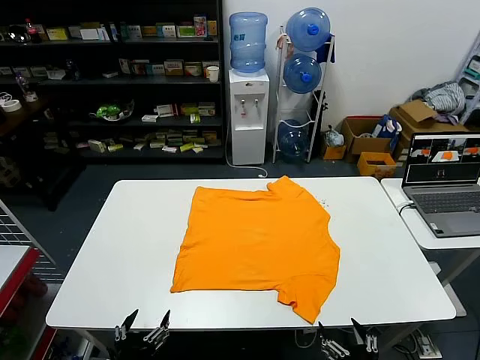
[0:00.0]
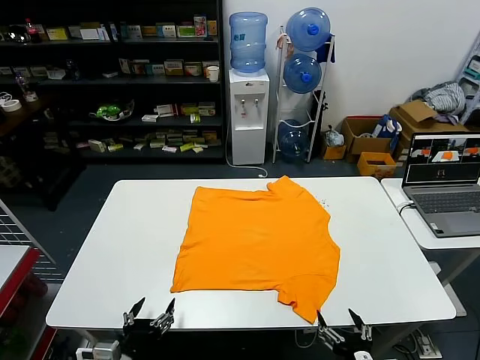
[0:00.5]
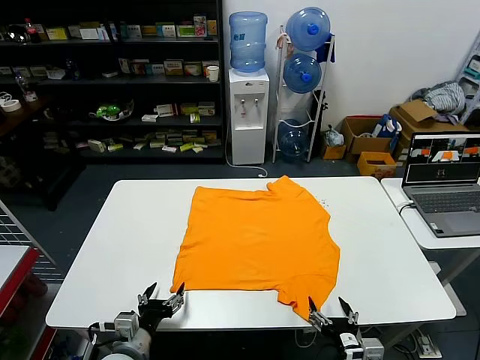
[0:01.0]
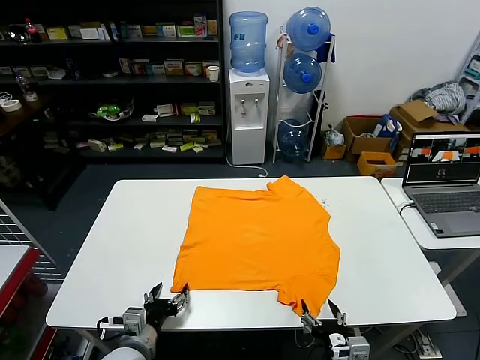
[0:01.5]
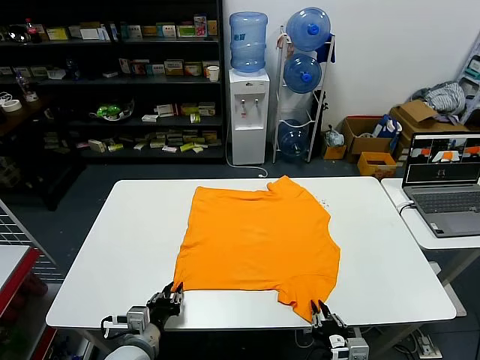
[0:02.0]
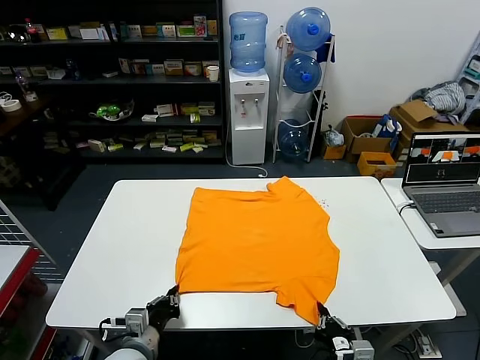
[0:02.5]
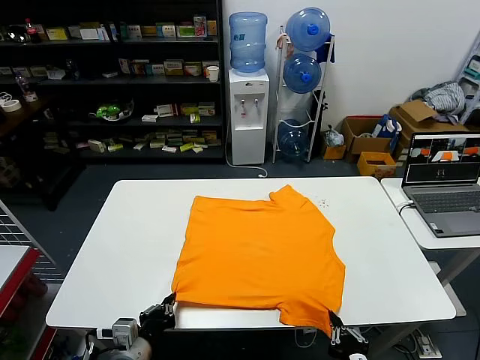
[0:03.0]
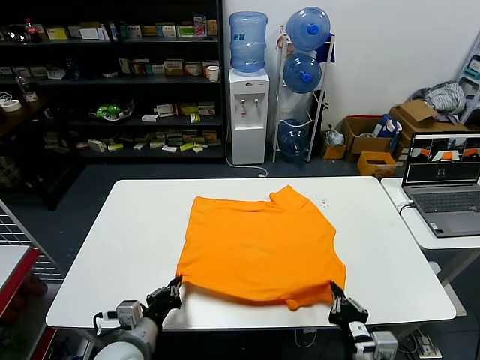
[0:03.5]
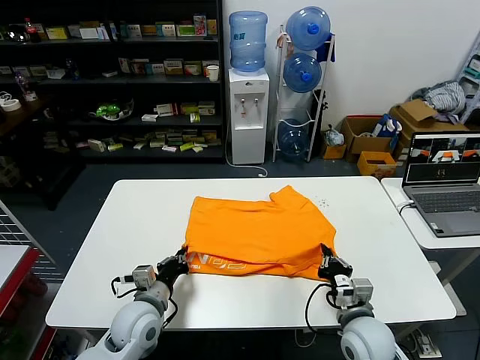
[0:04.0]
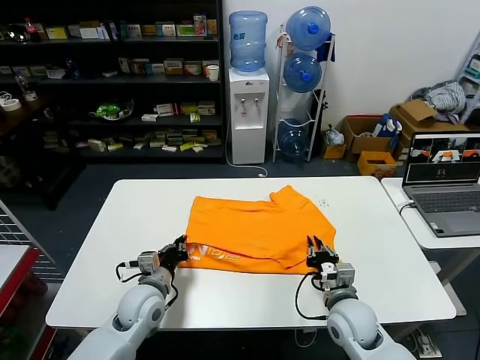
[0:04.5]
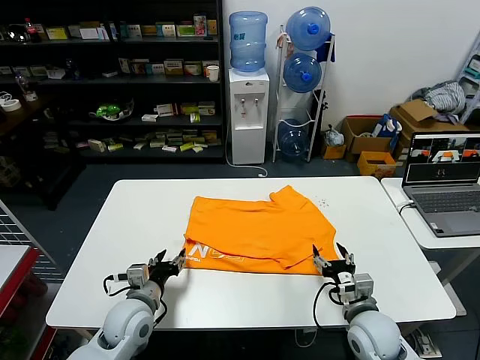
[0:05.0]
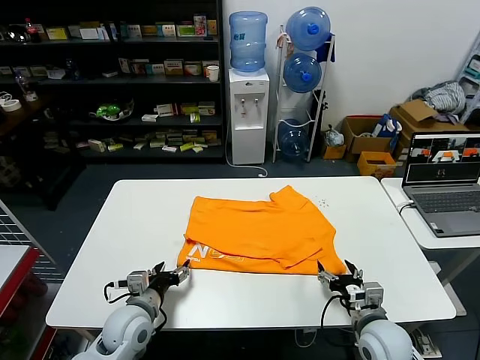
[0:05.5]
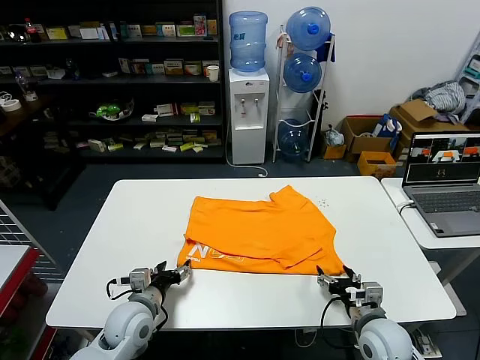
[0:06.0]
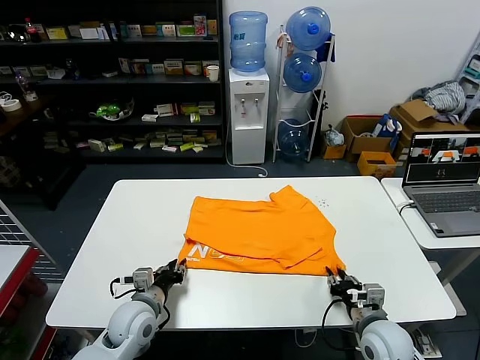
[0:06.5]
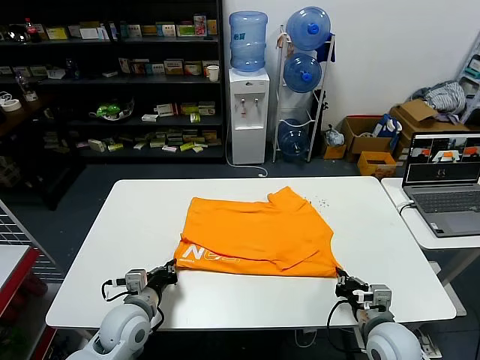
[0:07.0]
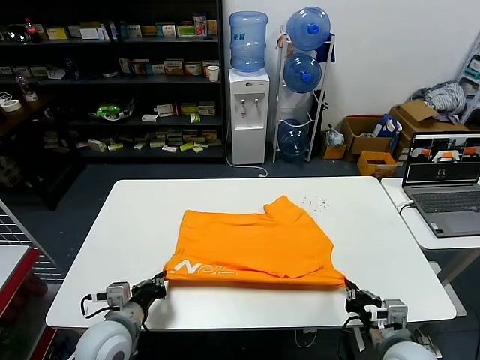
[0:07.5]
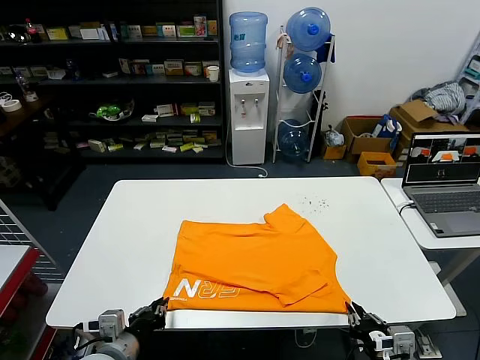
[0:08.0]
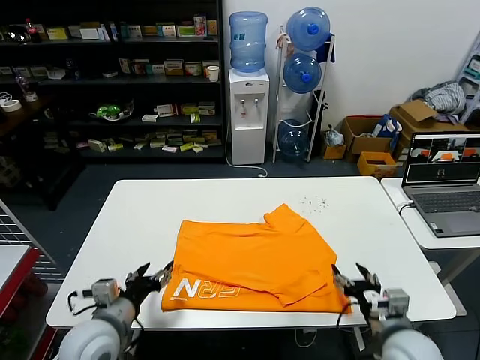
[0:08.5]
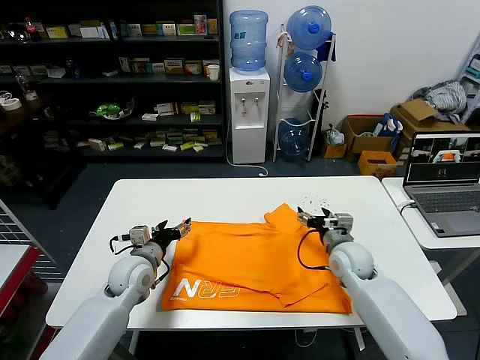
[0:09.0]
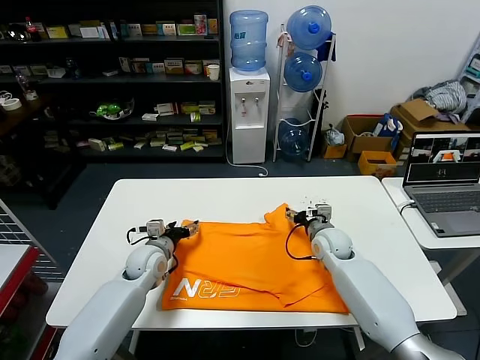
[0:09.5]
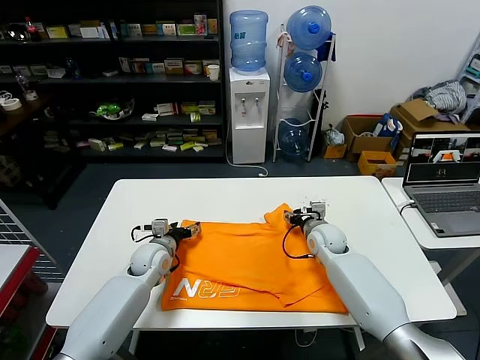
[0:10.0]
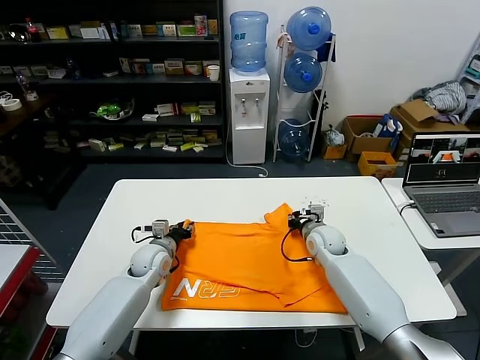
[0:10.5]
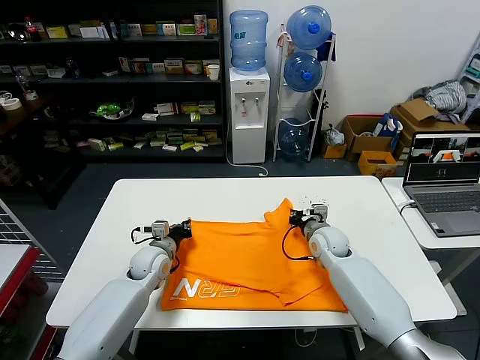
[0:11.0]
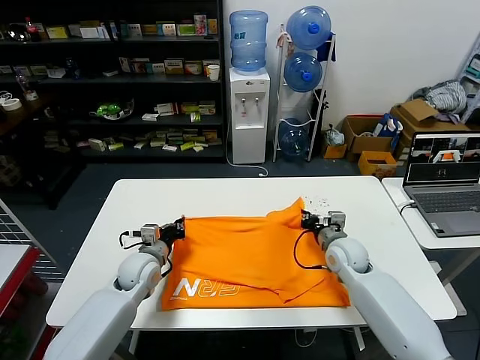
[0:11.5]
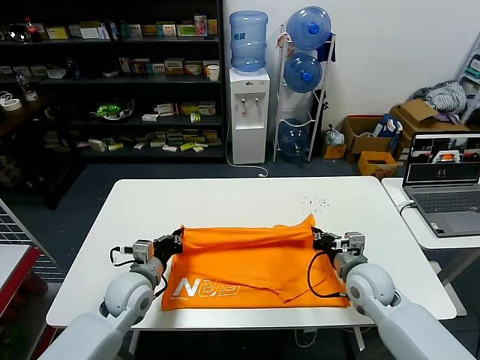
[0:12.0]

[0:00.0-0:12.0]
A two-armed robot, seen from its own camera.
Task of the whole recording: fold and organize the clothes.
Step, 0:00.0 to 0:02.0: use both grippers simultaneously to clamp the lower edge of the clothing fabric.
Step, 0:02.5 to 0:04.5: use both grippers to drag the lower edge of the fabric forward and fold it over the upper edge.
Step, 0:05.0 to 0:08.0: Drag the clothes downward with both gripper.
Step, 0:08.5 to 0:10.5: use both grippers simultaneously to clamp the upper edge of the clothing fabric.
0:02.0 to 0:04.0: The right gripper shifts about 10 cm forward; the left gripper goes some 5 cm forward, and closes.
0:04.0 to 0:06.0: The right gripper opens up; the left gripper opens.
0:06.0 to 0:08.0: The left gripper shifts approximately 10 cm backward and upward, and closes up. Meanwhile the right gripper shifts about 10 cm backward, and closes up.
0:08.0 to 0:10.0: The grippers both shift forward by some 30 cm. The left gripper opens; the right gripper opens.
0:10.0 to 0:12.0: Both grippers travel together backward, about 10 cm. The left gripper closes up. Meanwhile the right gripper closes up.

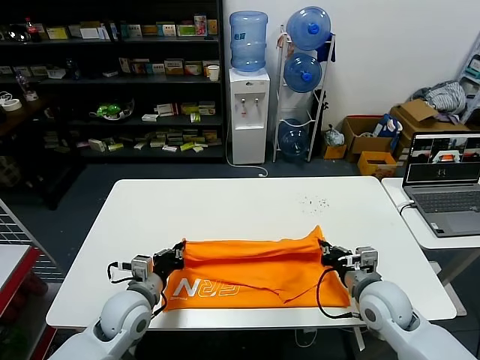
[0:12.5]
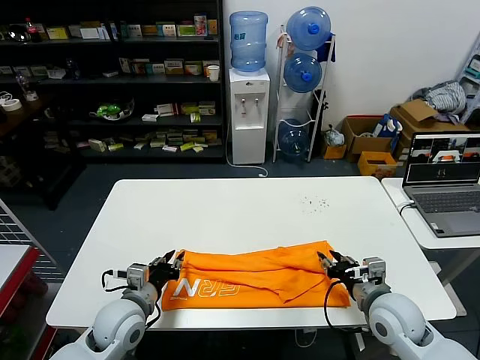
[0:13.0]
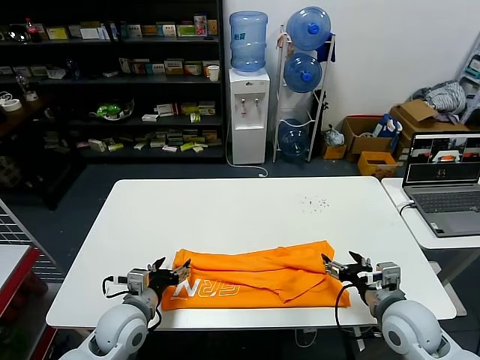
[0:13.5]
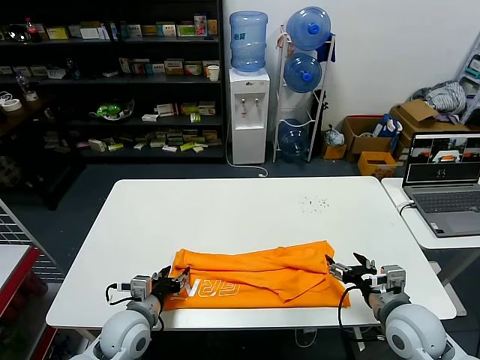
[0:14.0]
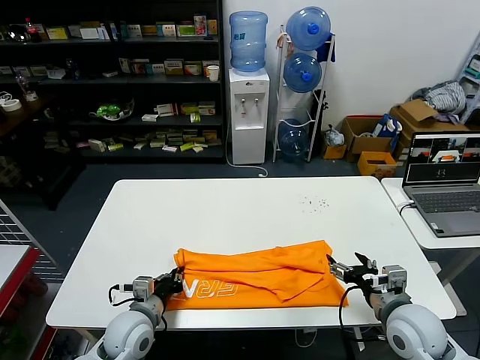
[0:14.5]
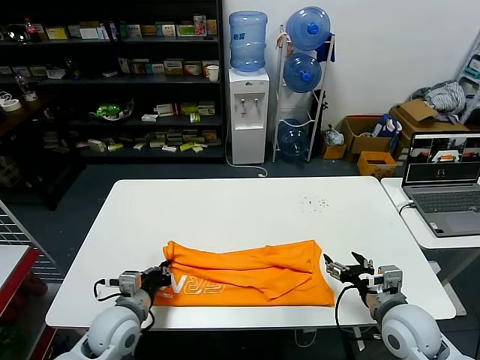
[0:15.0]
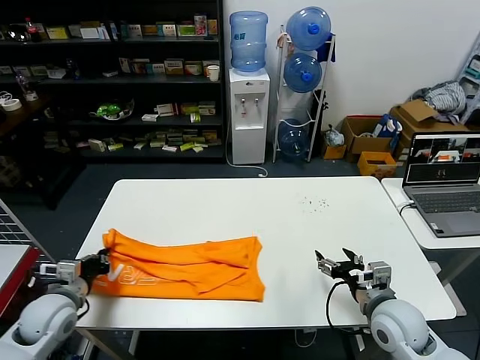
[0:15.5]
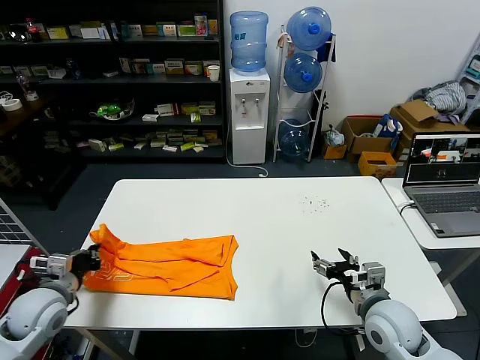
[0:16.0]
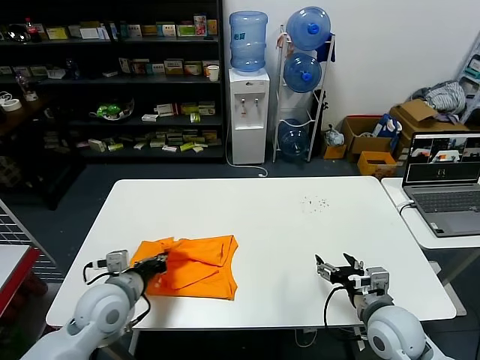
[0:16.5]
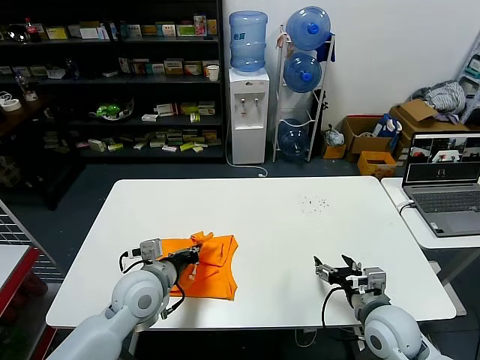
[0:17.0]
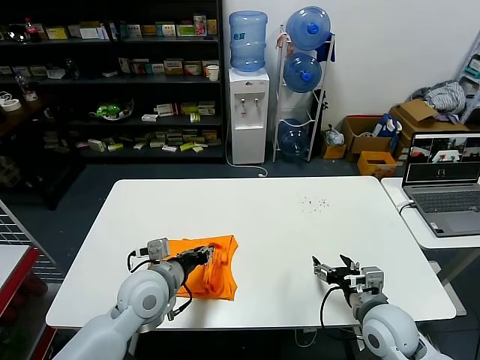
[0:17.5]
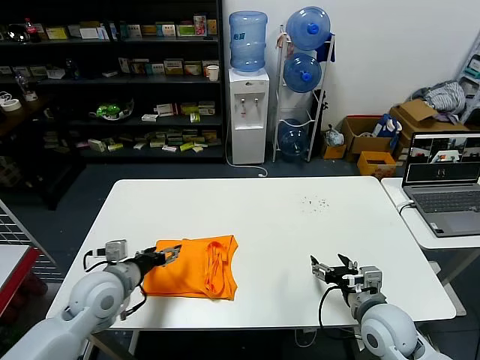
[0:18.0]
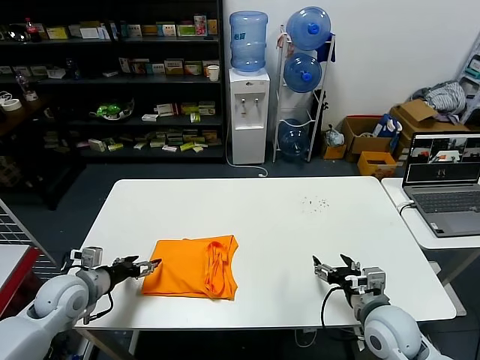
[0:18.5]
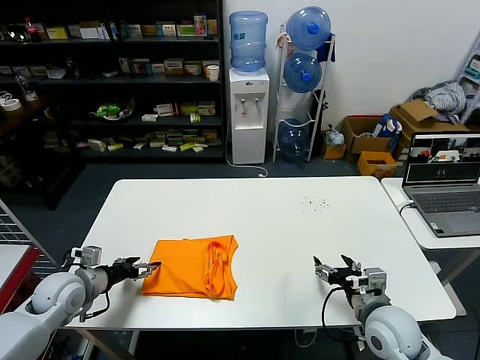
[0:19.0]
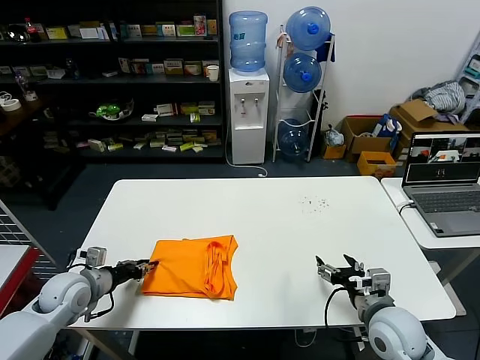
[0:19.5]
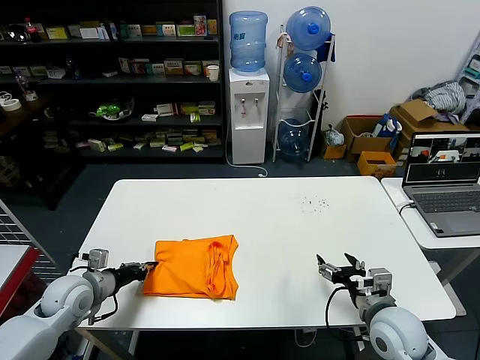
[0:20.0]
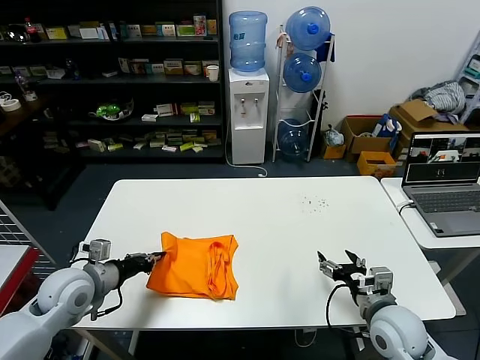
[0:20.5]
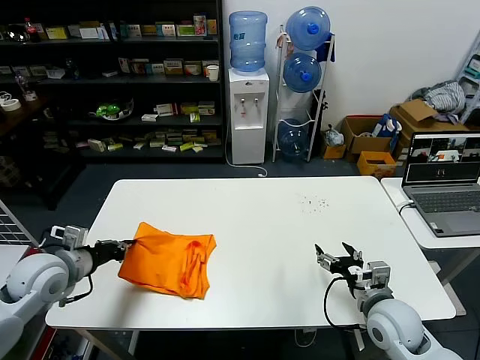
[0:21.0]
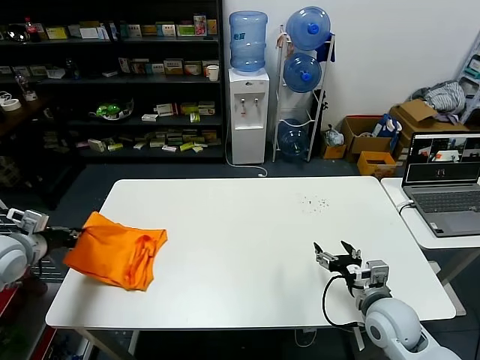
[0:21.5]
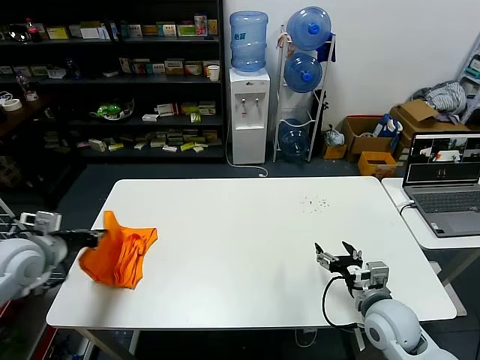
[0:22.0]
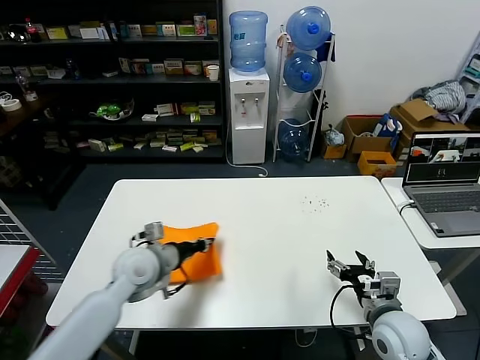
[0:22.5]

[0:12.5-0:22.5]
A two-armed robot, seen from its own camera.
Task of the whole recording: fold and organize the clothes.
Step, 0:13.5 to 0:14.5: use the left gripper to clamp the left edge of the fabric.
Step, 0:15.0 to 0:17.5: use the left gripper to drag the left edge of the fabric to the left and folds it over the right edge.
0:12.5 to 0:14.5: The left gripper opens and closes again, while the right gripper shifts roughly 5 cm backward, and opens up.
0:14.5 to 0:16.5: The left gripper goes some 10 cm upward, and travels to the left and back again, about 20 cm each way.
0:16.5 to 0:18.5: The left gripper is displaced to the left by about 10 cm, and opens its fingers.
0:18.5 to 0:20.5: The left gripper closes up.
0:20.5 to 0:22.5: The left gripper shifts roughly 10 cm to the right.

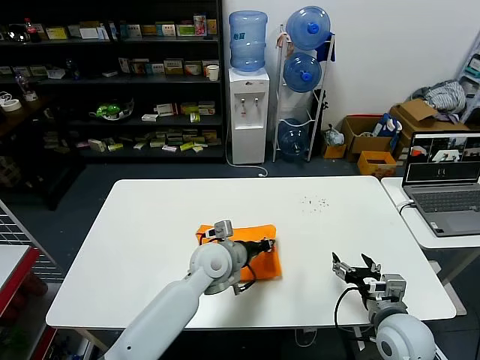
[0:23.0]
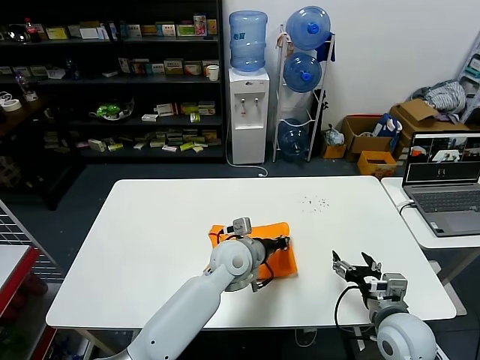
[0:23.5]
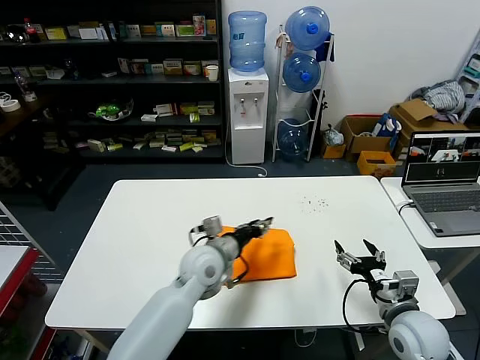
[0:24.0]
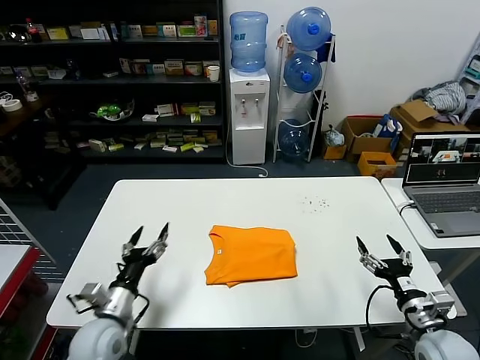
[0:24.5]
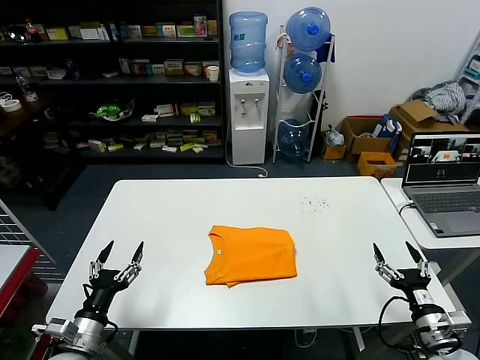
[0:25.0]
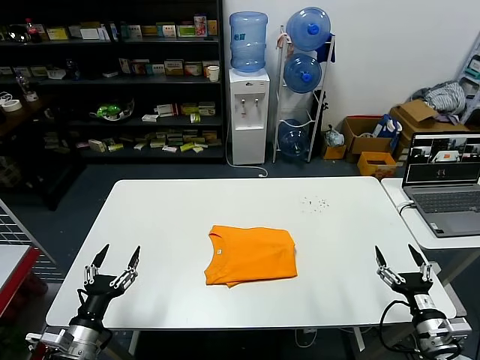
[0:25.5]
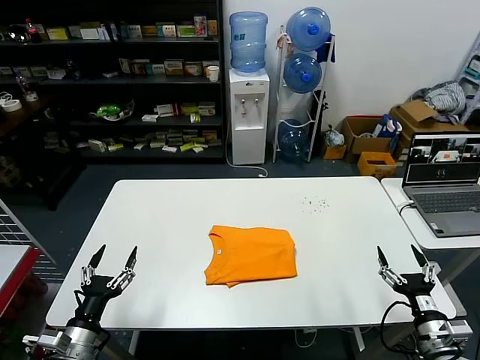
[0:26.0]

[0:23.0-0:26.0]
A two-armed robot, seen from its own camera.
Task of the whole recording: fold and organize the clothes.
0:23.0 to 0:24.5: The right gripper shifts about 5 cm to the right. The left gripper moves to the left and backward, roughly 20 cm, and opens up.
0:24.5 to 0:26.0: The right gripper moves some 5 cm, while the left gripper moves backward and to the left, approximately 15 cm.
